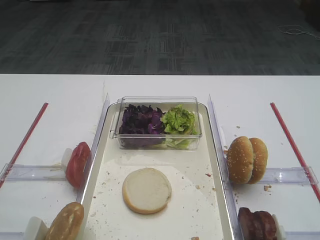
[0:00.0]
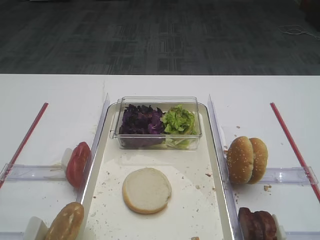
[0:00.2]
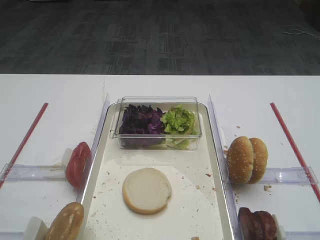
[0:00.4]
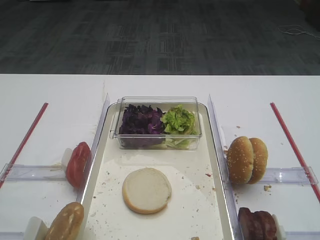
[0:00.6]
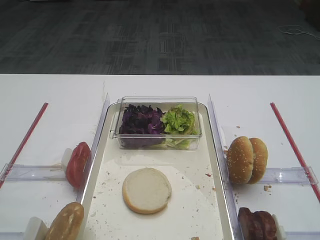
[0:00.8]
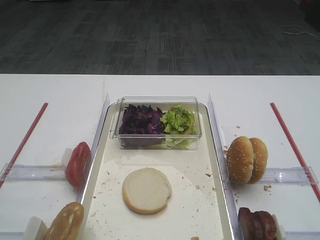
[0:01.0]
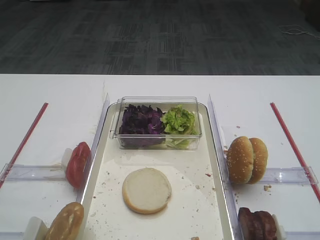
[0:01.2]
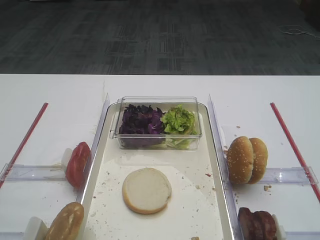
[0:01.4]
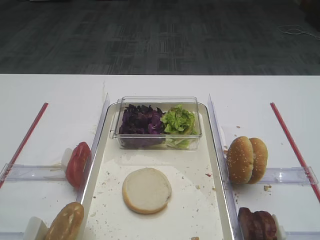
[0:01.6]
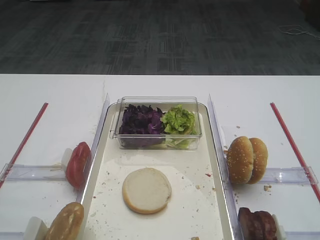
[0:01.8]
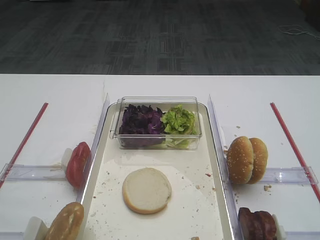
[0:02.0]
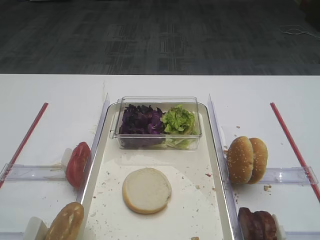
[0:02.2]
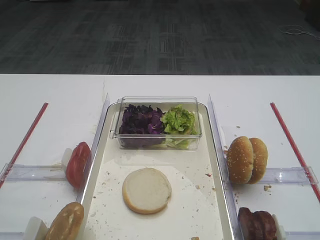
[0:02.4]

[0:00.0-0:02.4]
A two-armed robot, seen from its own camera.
0:00.0 to 0:02.4: The two grippers keep their place.

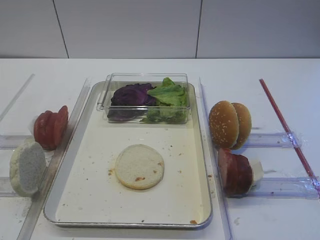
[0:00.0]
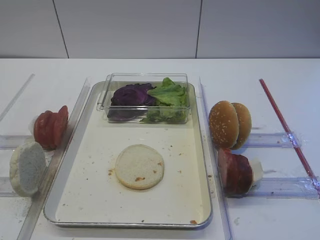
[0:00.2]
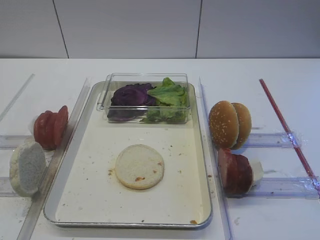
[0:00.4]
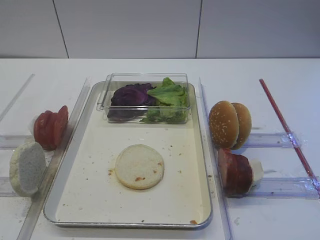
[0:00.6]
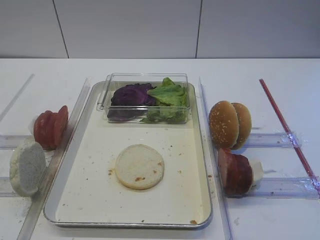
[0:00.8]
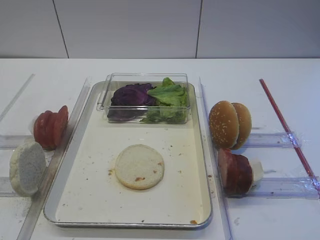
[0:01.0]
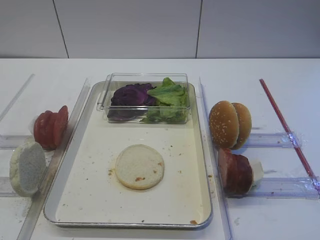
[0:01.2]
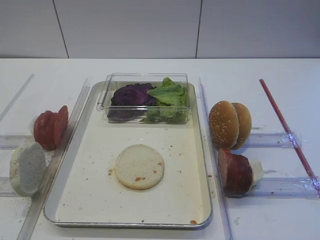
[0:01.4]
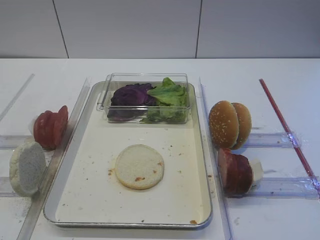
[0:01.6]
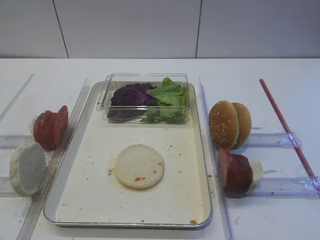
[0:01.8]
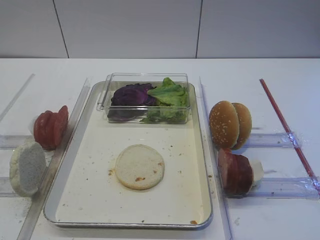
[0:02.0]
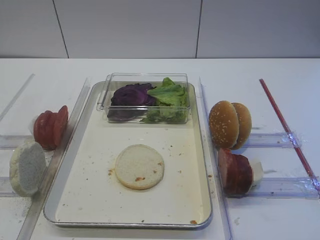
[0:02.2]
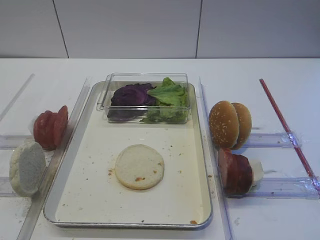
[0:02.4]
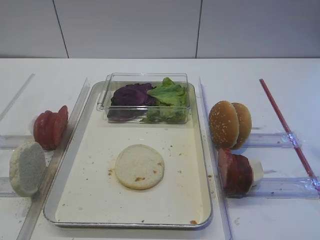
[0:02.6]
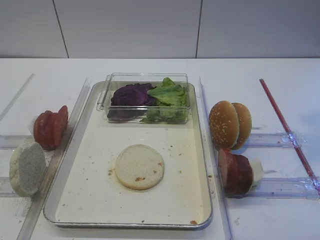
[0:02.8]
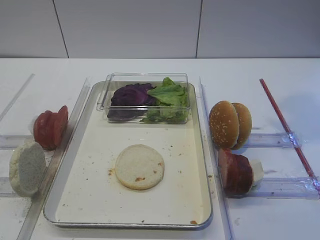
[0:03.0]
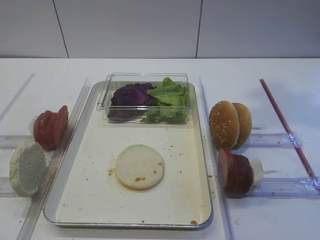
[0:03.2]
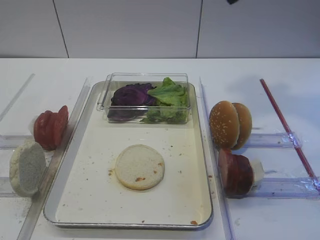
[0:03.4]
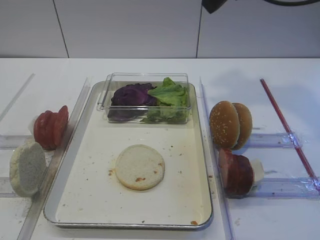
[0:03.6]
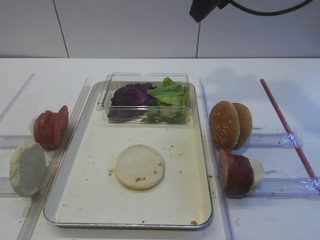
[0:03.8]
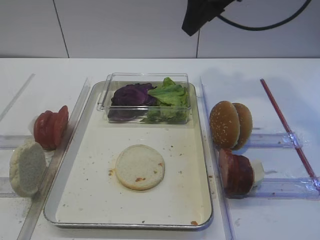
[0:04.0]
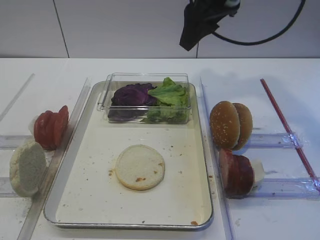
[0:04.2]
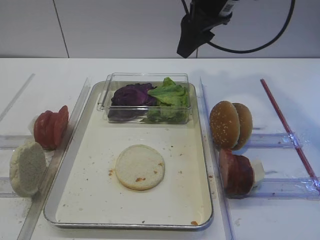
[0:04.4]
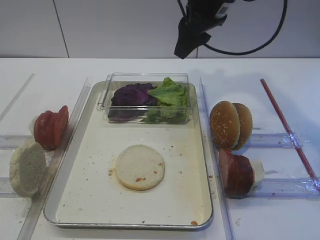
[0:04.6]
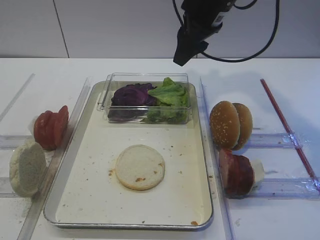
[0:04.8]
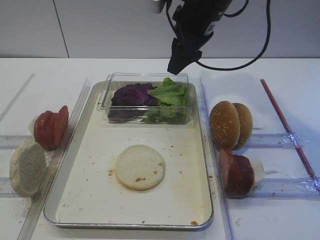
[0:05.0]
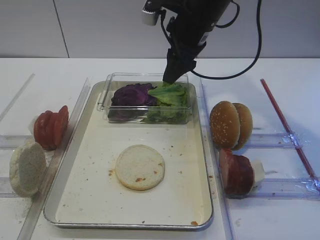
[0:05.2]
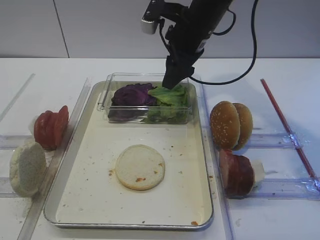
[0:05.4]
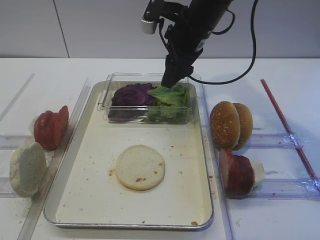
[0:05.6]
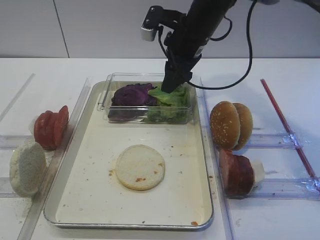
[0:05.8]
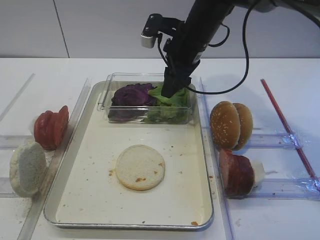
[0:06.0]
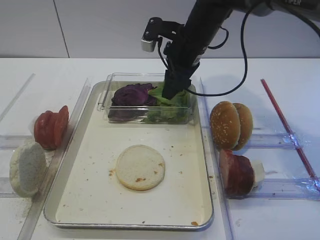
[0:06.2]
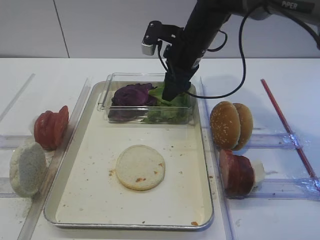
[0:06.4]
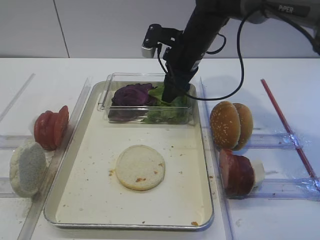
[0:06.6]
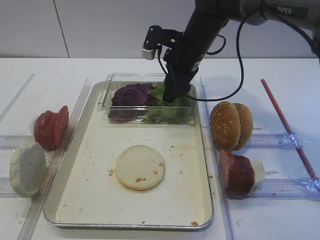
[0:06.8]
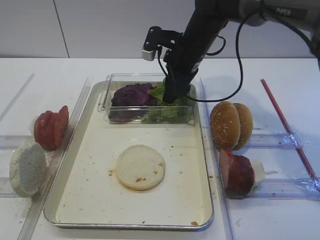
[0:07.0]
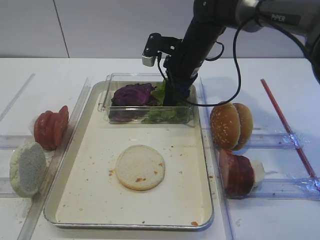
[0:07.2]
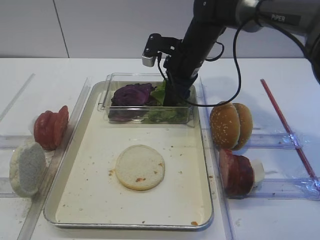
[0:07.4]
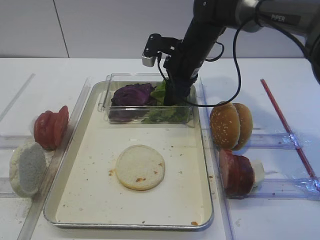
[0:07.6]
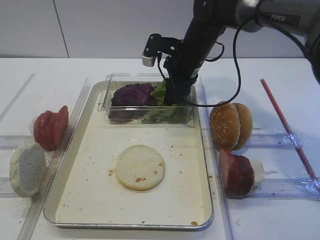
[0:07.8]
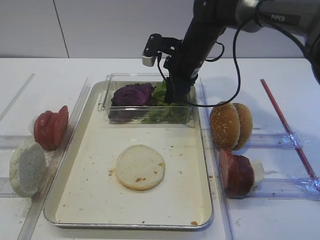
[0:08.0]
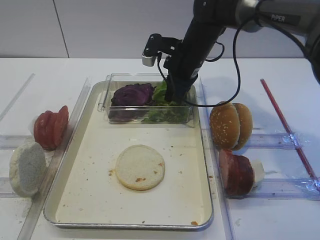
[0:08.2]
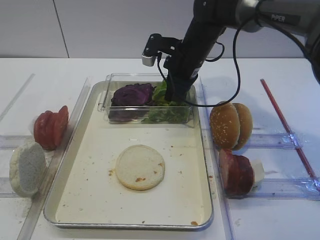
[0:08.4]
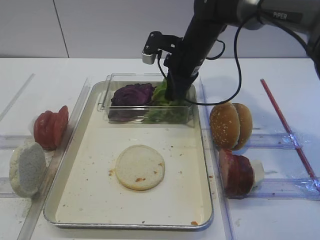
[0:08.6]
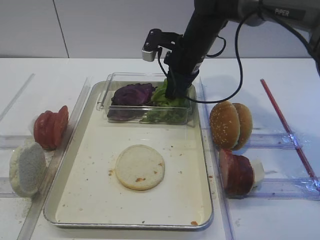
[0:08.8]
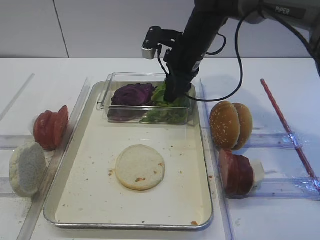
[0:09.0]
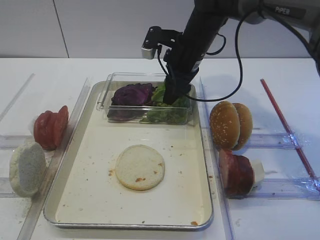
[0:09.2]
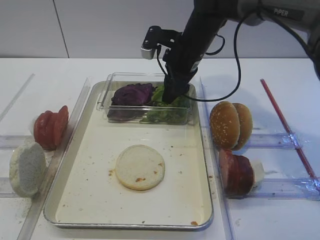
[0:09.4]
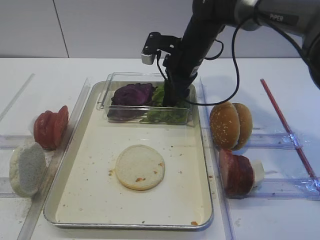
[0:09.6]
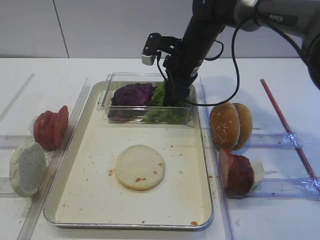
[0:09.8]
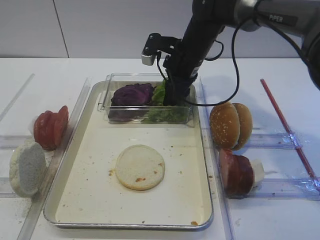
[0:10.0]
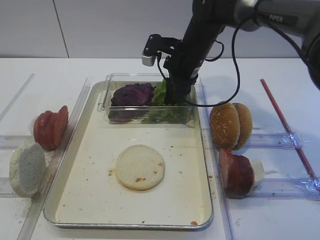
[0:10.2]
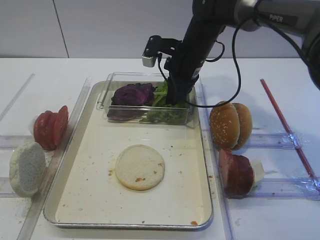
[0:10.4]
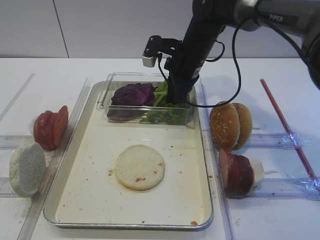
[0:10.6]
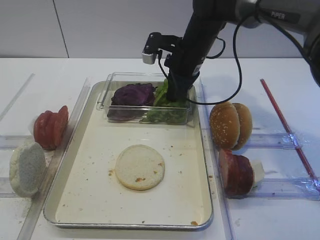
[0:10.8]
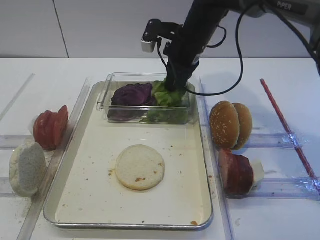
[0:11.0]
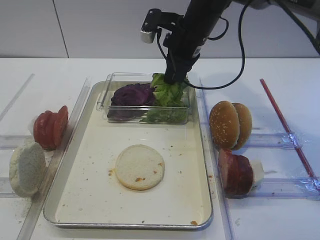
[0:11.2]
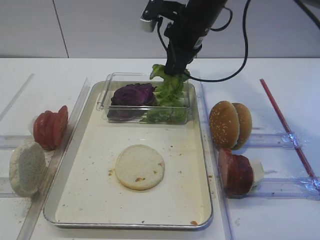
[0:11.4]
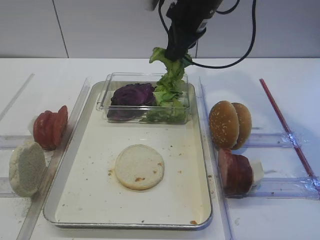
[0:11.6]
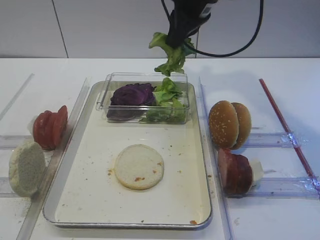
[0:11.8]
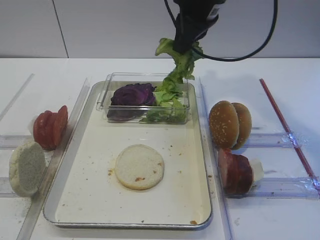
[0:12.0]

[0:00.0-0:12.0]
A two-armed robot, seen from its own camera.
Step, 0:00.0 to 0:11.4: Pick up the lettuce leaf with the right gripper.
0:03.0 to 0:04.4: The right gripper shifts approximately 25 cm forward, downward and to the left.
0:04.4 to 0:06.0: The right gripper travels downward by about 10 cm.
0:06.0 to 0:07.6: The grippers stay close to where they were, moving slightly.
0:07.6 to 0:09.0: The right gripper closes, then opens again.
0:09.0 to 0:10.4: The right gripper closes up.
0:10.4 to 0:12.0: The right gripper goes roughly 15 cm upward and backward.

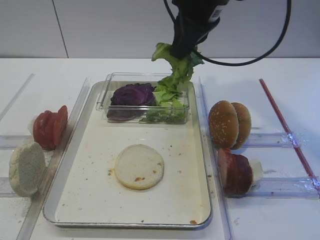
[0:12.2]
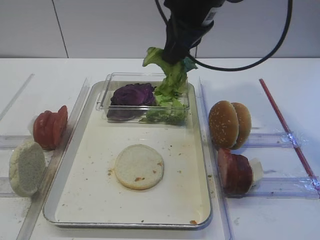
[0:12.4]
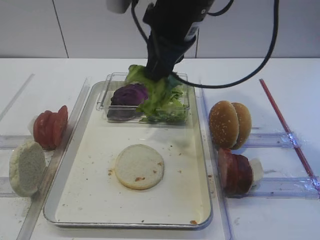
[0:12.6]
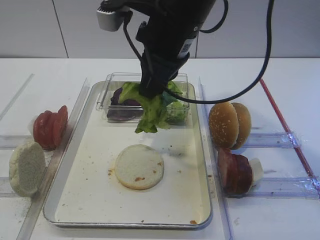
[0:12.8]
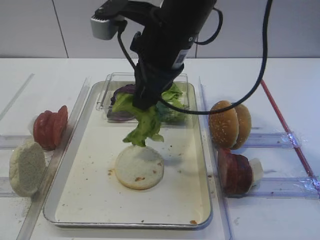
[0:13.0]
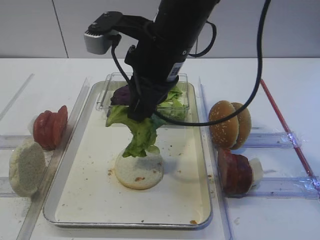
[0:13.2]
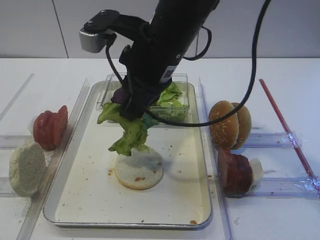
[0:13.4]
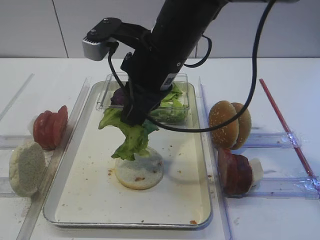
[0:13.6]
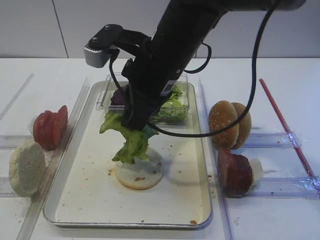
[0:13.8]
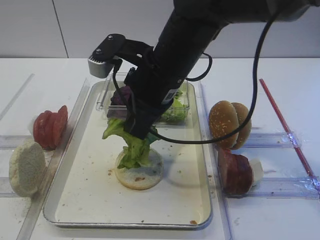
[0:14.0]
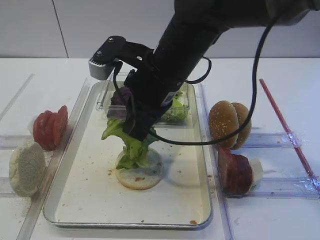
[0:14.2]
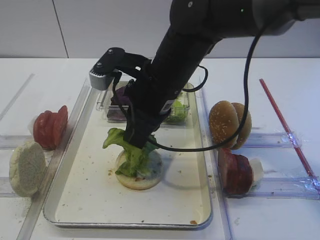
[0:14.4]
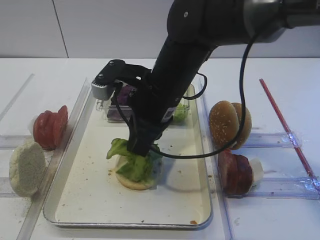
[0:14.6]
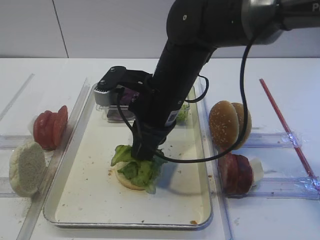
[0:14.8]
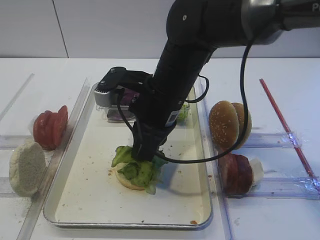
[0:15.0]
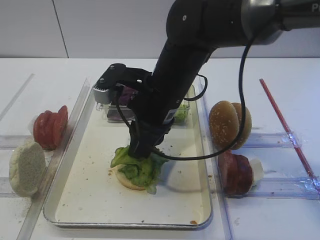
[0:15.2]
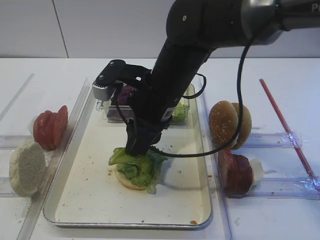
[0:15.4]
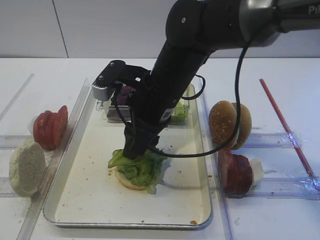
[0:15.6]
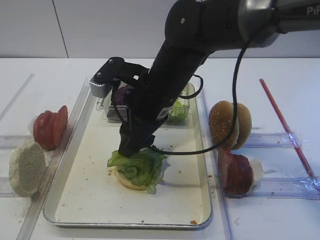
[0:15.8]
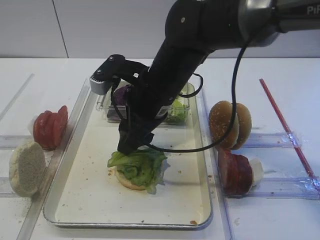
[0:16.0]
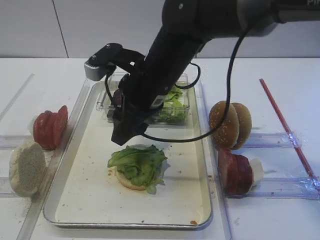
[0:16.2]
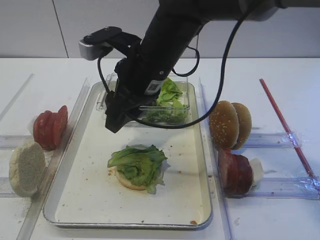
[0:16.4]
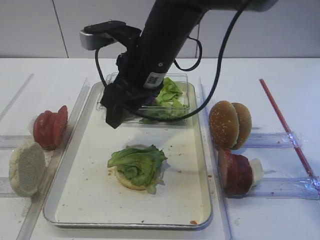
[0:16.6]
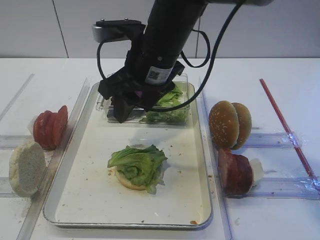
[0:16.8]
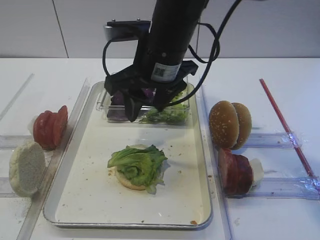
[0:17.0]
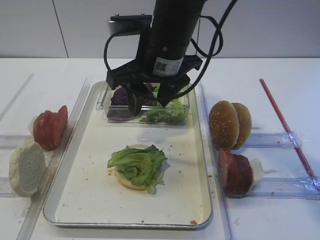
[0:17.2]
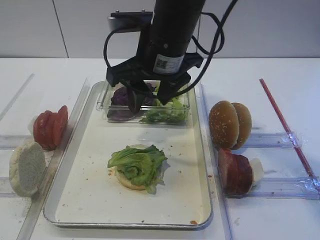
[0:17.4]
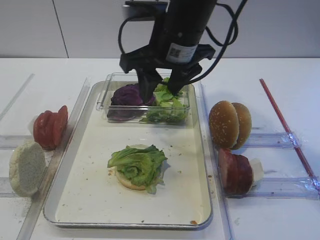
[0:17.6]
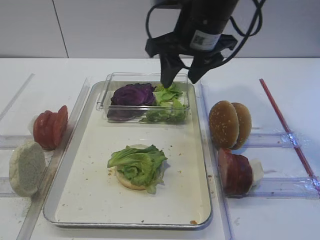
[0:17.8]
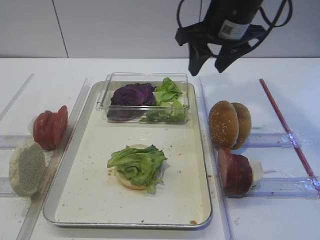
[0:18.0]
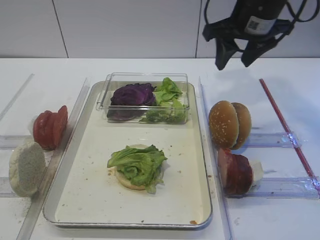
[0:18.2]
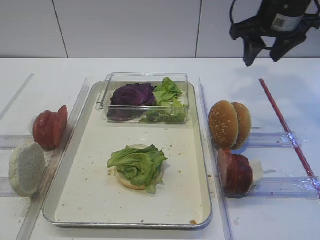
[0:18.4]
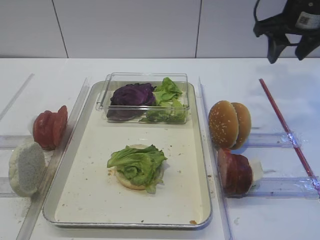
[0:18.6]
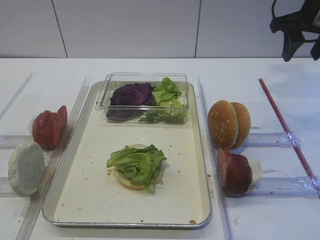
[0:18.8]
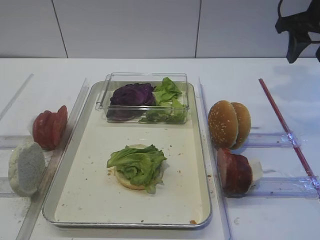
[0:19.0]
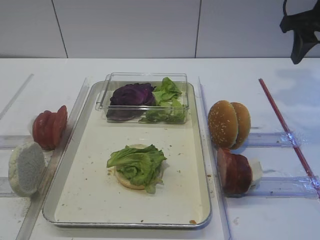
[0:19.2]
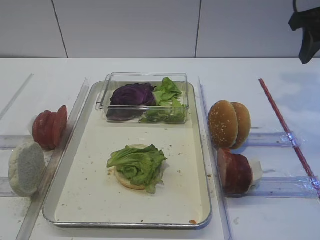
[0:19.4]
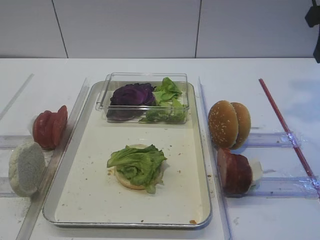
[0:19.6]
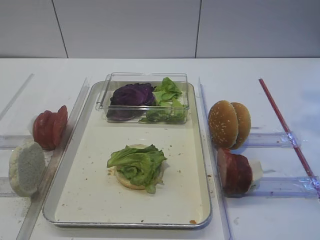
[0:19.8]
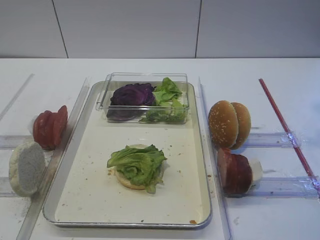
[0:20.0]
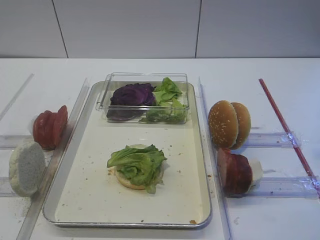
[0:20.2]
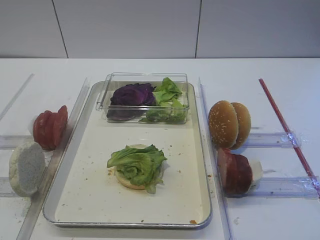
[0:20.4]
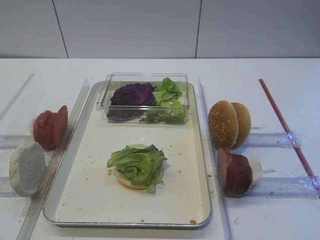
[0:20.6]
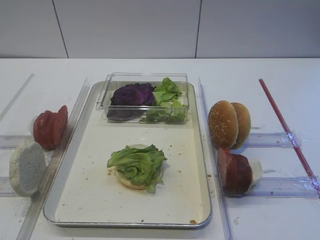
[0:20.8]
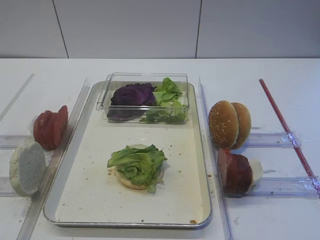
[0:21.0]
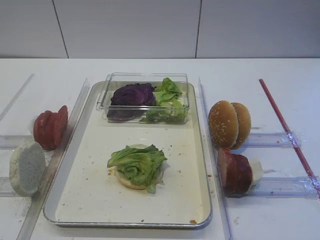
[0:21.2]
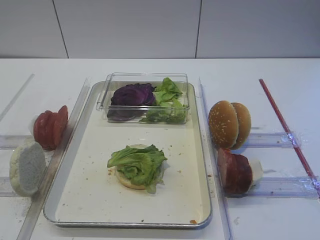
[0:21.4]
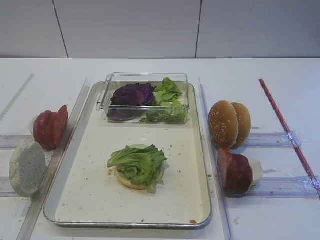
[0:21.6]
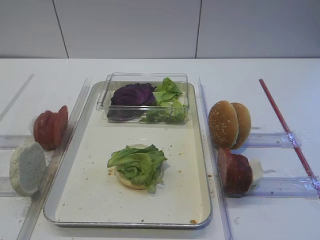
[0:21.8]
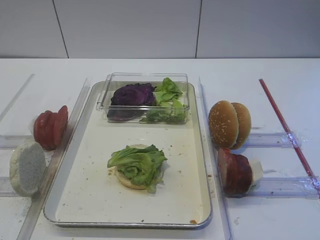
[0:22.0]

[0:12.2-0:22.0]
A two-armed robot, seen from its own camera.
Step, 0:12.2 to 0:16.0: Place the lettuce leaf on the bread slice with the right gripper.
0:12.2 to 0:13.6: The right gripper goes about 10 cm to the left, backward and downward.
0:13.6 to 0:15.0: The right gripper shifts about 5 cm downward.
0:15.0 to 0:16.4: The right gripper opens.
0:16.4 to 0:17.8: The right gripper travels to the right by about 10 cm.
0:17.8 to 0:19.2: The right gripper goes roughly 20 cm to the right.
0:19.2 to 0:20.6: The right gripper moves backward, some 25 cm.
